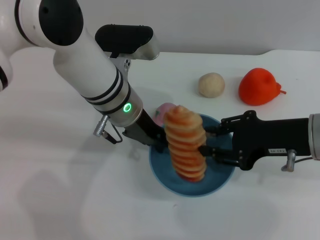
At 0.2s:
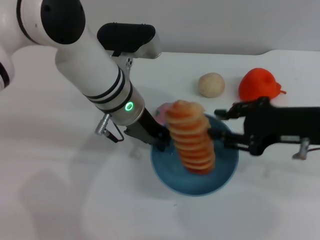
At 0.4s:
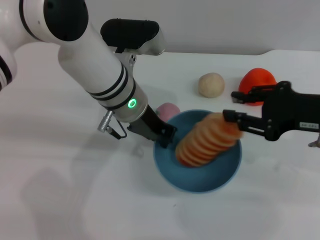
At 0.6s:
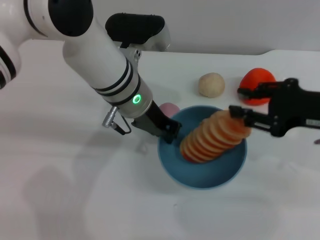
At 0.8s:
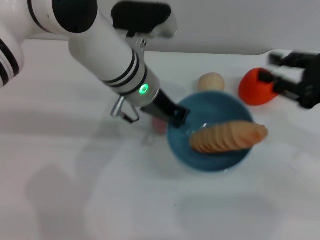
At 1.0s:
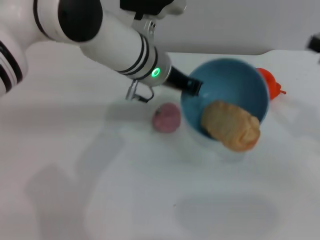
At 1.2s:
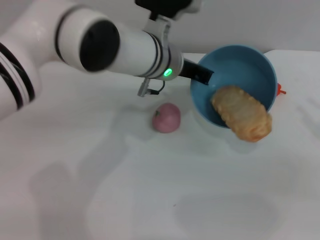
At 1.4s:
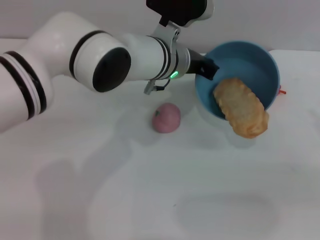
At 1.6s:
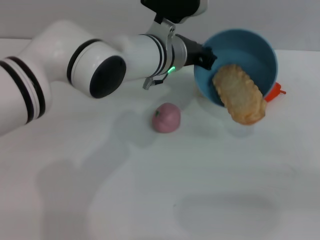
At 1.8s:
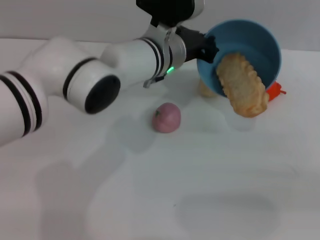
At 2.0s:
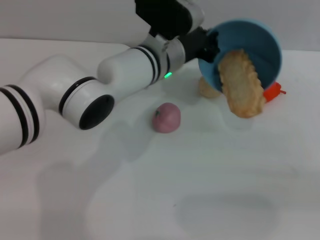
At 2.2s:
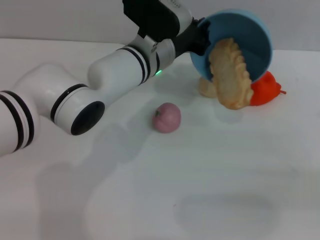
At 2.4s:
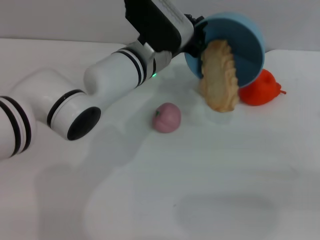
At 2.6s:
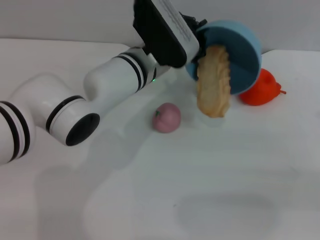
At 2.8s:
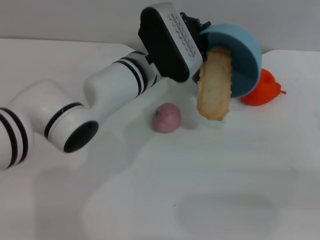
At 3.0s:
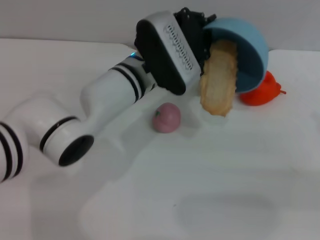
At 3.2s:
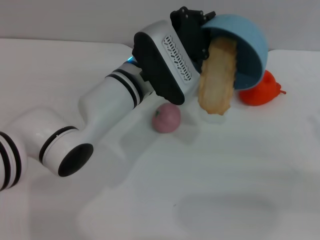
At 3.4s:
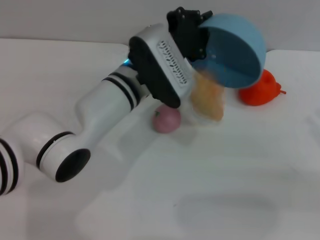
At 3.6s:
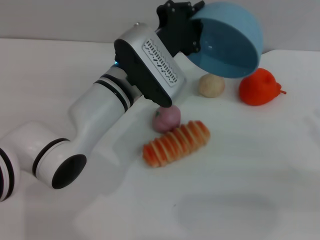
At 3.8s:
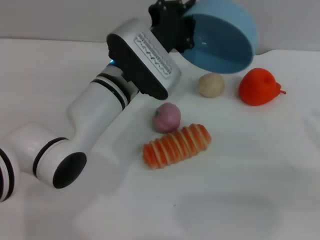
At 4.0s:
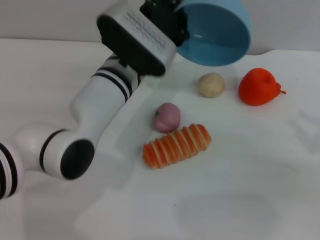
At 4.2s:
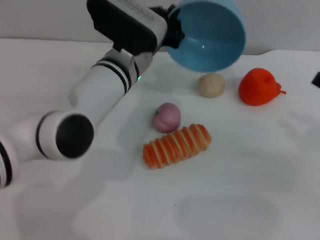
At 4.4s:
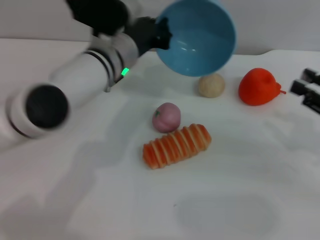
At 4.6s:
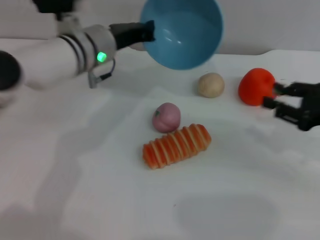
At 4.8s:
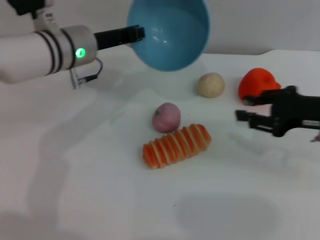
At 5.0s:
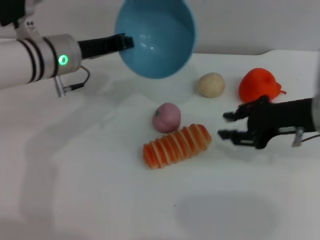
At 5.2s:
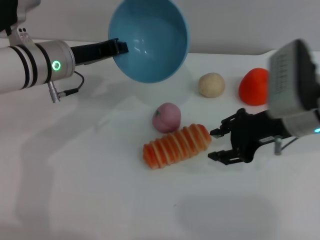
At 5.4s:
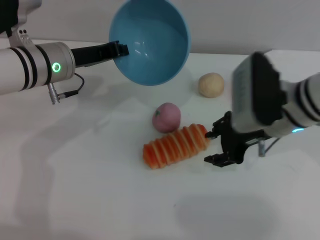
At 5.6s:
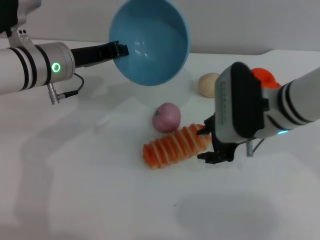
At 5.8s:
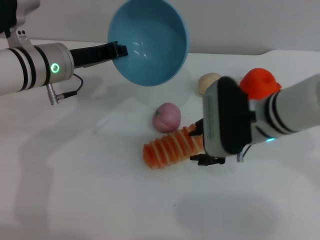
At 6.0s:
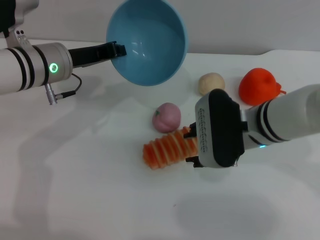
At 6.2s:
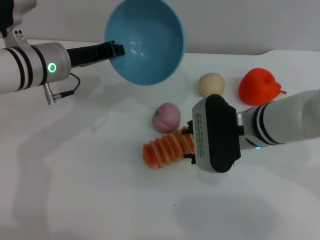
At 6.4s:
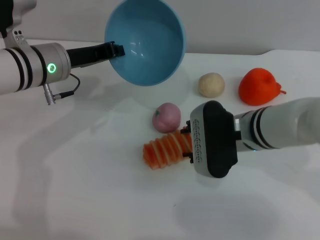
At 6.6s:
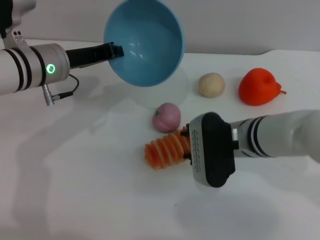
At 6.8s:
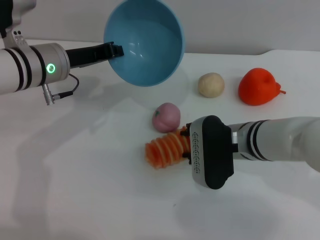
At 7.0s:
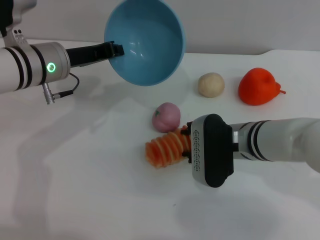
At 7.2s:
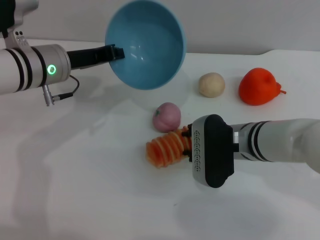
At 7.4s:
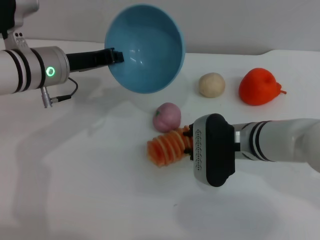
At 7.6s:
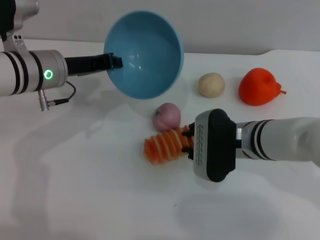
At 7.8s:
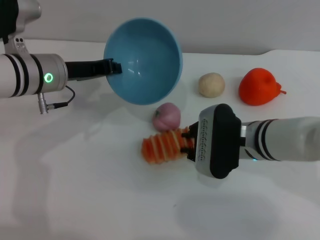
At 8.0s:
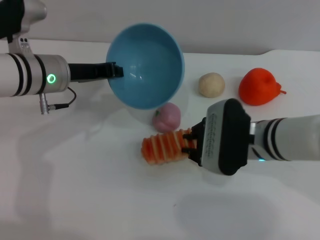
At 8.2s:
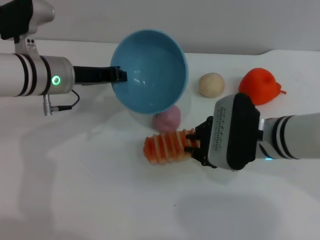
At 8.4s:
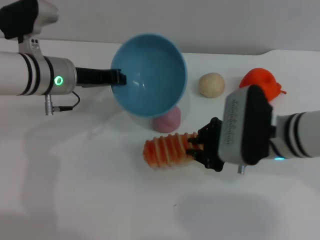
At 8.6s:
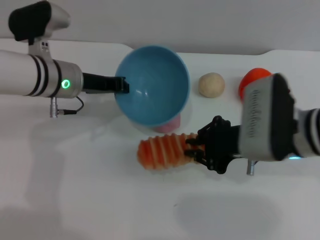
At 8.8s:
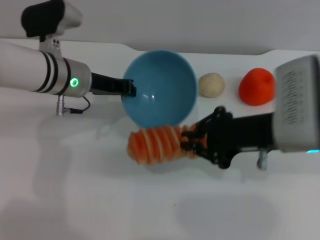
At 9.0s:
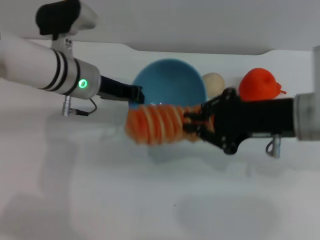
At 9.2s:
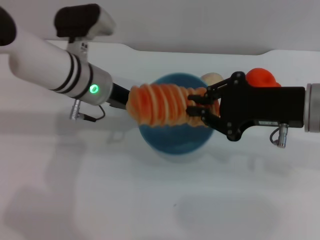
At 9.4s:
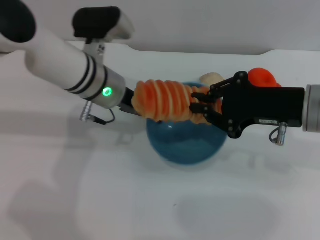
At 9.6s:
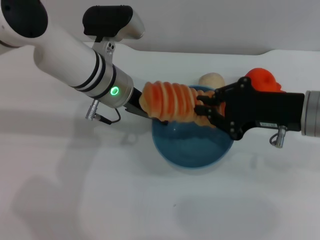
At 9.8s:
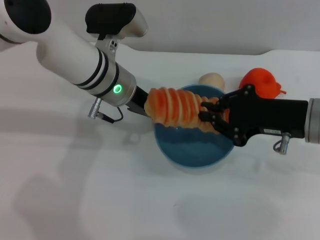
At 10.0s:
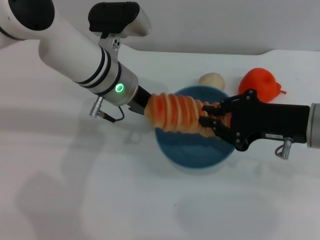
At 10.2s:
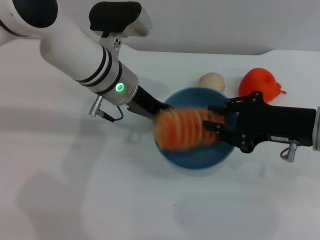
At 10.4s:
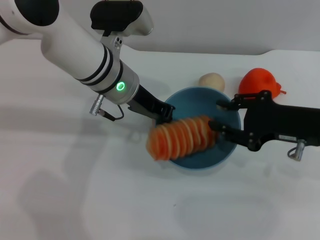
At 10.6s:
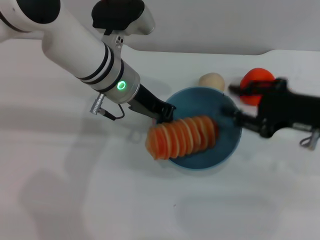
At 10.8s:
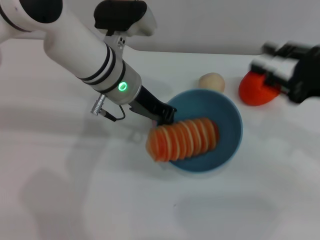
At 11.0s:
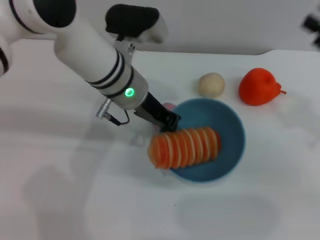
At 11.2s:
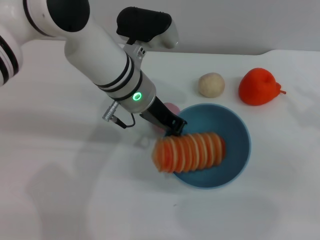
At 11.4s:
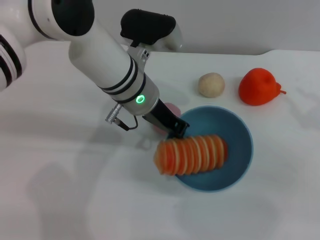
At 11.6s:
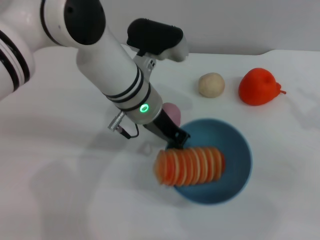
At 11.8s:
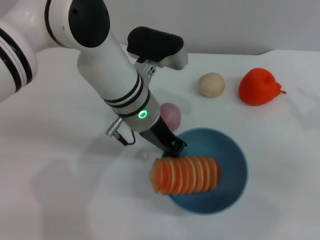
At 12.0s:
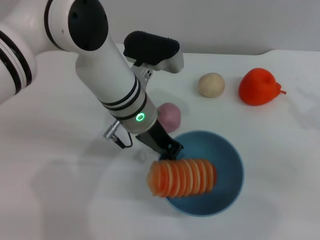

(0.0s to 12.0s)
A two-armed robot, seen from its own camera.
Task of the whole recording: put the bread into the blue bowl and pour it out repeatedly.
Step, 0.8s - 3.8s: Pour the bread out of the bowl.
Step, 4.0s - 8.8s: Pick up the bread with the right gripper.
Step, 9.0s - 10.4s: Place the bread into the bowl.
0.0s - 1.6s: The left gripper is displaced to the right and forward by about 10 cm; the right gripper goes roughly 20 cm to the right.
3.0s - 4.4s: The right gripper shifts by some 5 cm.
4.4s - 6.0s: The left gripper is displaced to the left by some 10 cm; the right gripper is displaced to the left by roughly 20 cm.
6.0s - 7.6s: The grippers move only a little.
7.6s - 9.0s: The right gripper heads upward and to the right, covering some 15 cm, and closes up.
9.0s - 10.4s: The left gripper shifts approximately 5 cm to the right, while the right gripper ends up approximately 5 cm from where it was.
10.4s - 12.0s: The right gripper goes approximately 10 cm to the right, and opens.

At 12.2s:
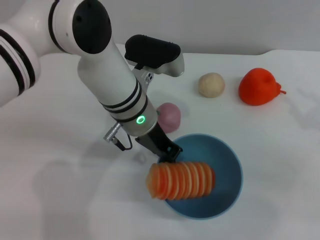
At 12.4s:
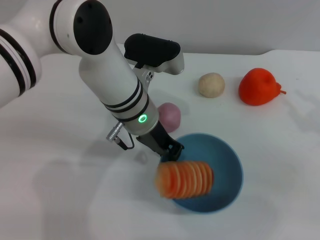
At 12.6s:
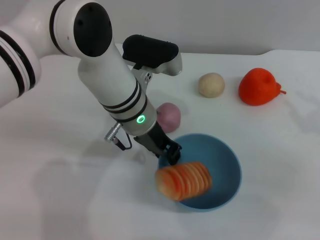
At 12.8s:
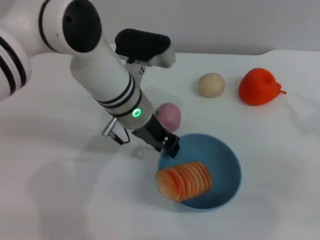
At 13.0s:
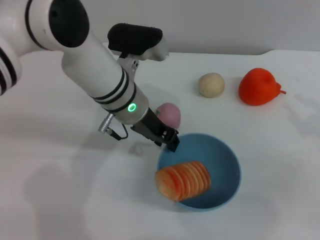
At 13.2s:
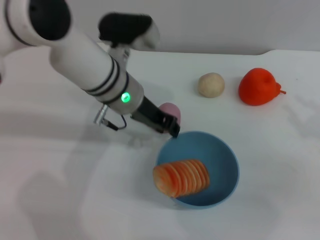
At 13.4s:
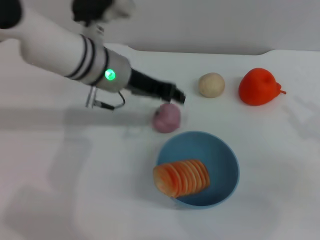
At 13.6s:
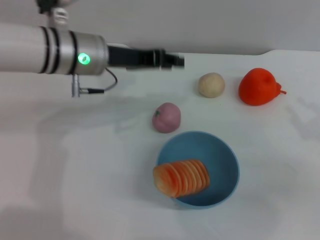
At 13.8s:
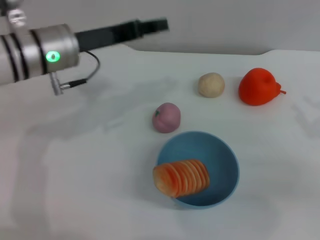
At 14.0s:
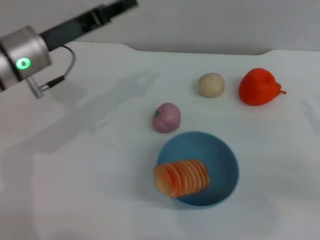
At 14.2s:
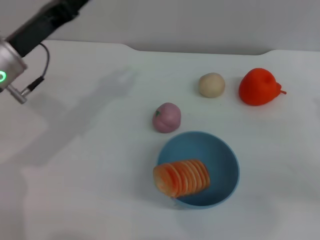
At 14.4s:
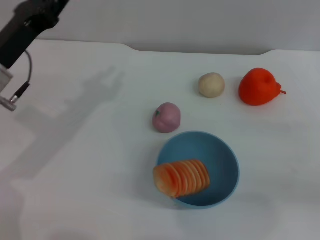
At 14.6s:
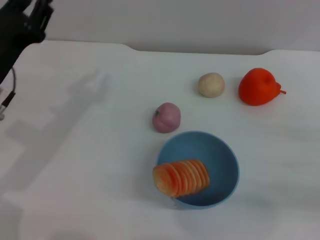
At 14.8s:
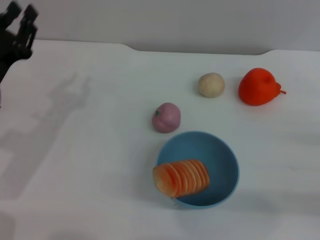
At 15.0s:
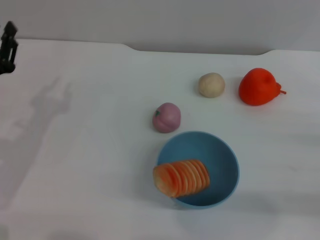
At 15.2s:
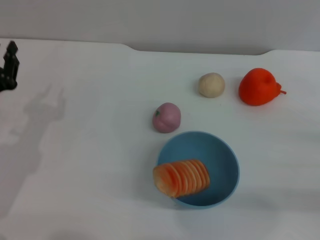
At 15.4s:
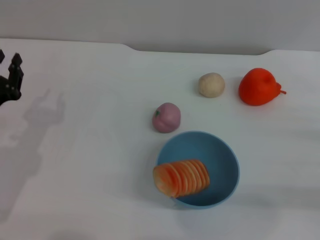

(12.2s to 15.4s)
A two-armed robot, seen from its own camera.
Task of the whole recording: put the bread into the blue bowl and pour it out repeatedly.
12.2s - 13.8s: The left gripper goes approximately 10 cm to the left, and opens up.
13.8s - 15.4s: The left gripper heads downward, to the left and backward, covering approximately 20 cm. The right gripper goes roughly 5 cm downward.
